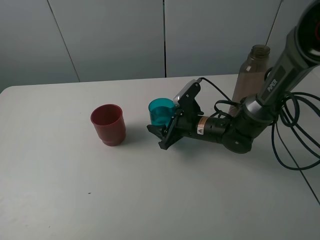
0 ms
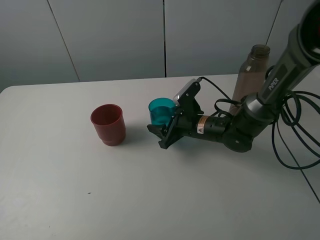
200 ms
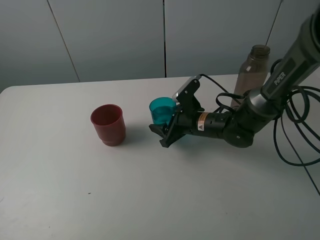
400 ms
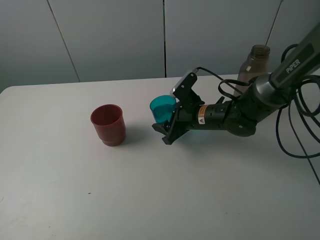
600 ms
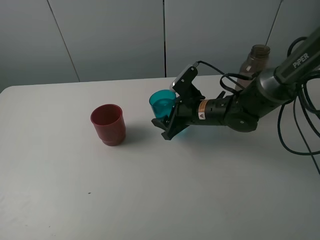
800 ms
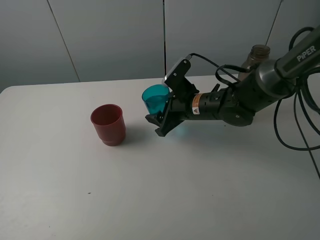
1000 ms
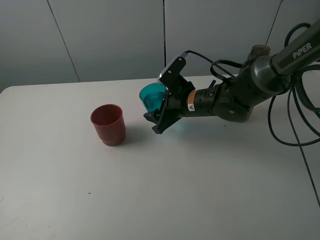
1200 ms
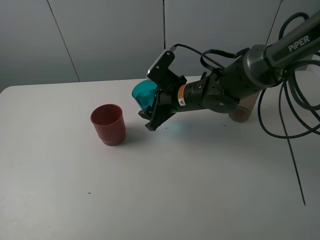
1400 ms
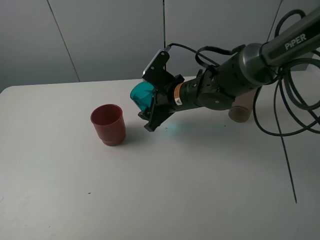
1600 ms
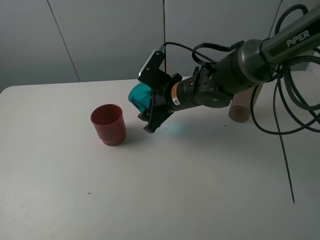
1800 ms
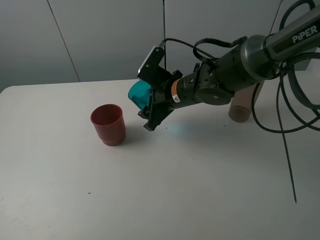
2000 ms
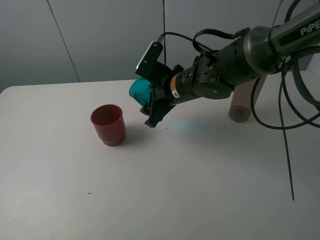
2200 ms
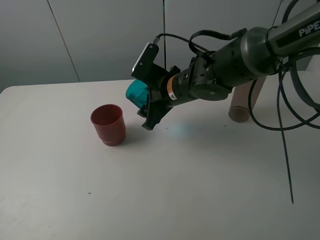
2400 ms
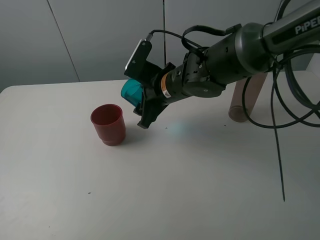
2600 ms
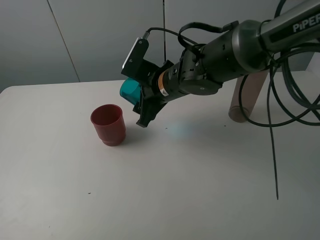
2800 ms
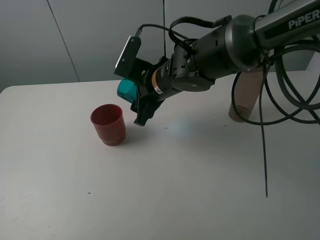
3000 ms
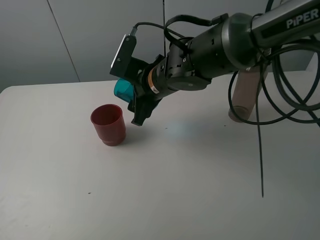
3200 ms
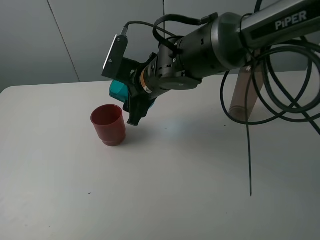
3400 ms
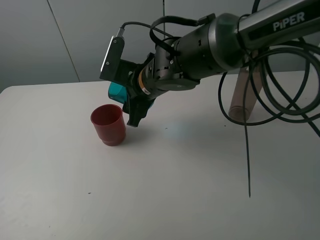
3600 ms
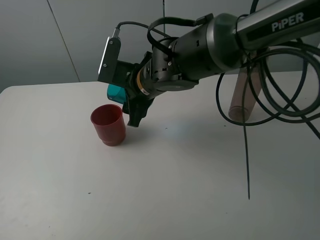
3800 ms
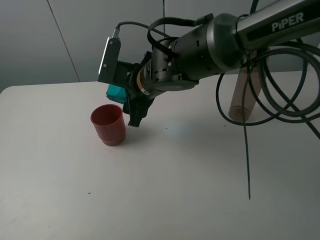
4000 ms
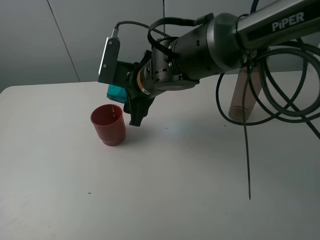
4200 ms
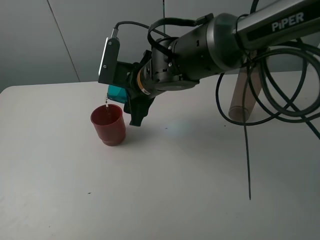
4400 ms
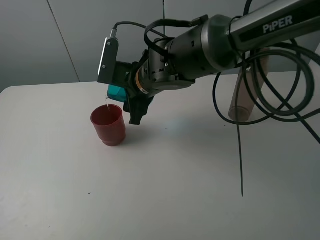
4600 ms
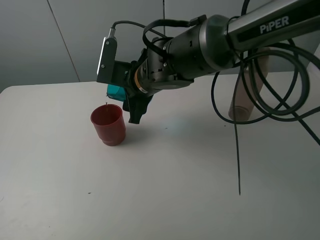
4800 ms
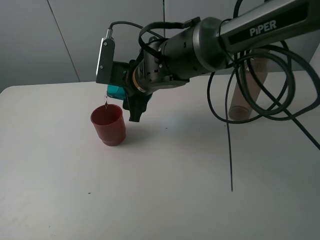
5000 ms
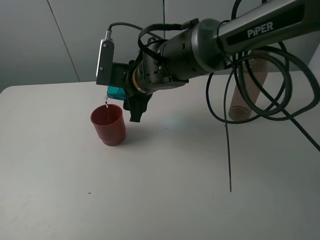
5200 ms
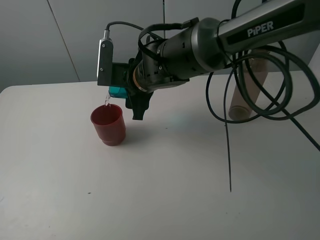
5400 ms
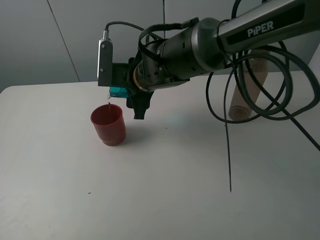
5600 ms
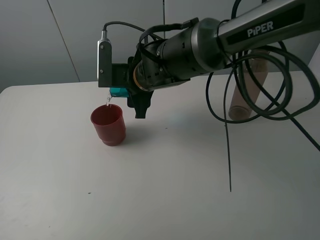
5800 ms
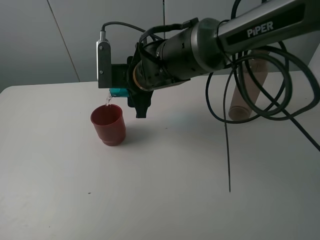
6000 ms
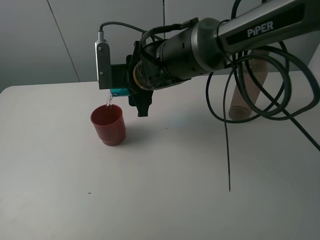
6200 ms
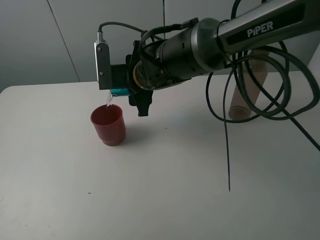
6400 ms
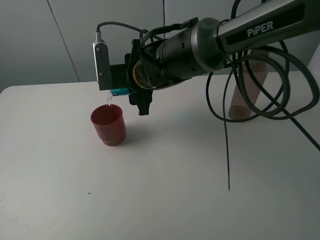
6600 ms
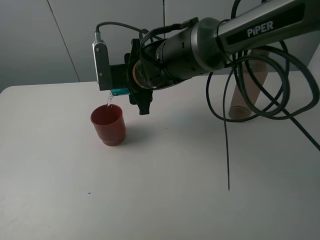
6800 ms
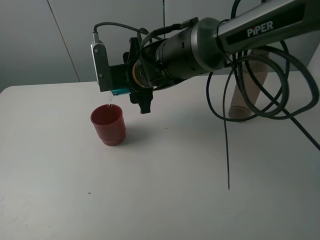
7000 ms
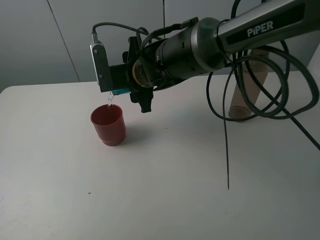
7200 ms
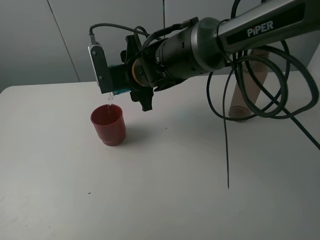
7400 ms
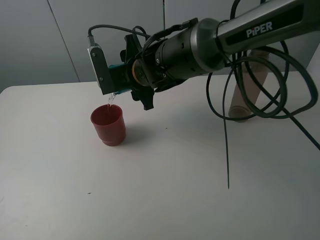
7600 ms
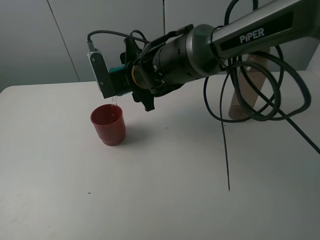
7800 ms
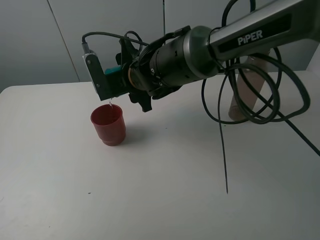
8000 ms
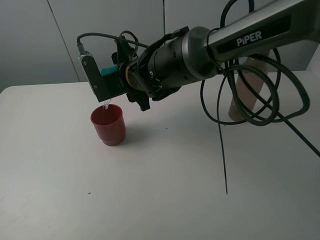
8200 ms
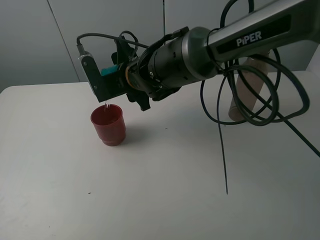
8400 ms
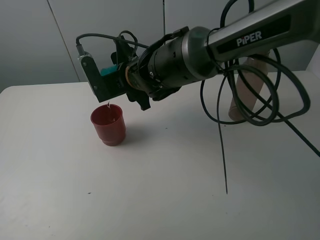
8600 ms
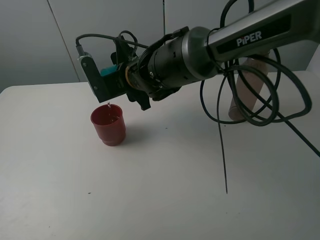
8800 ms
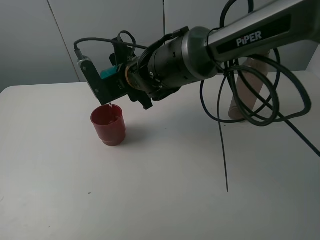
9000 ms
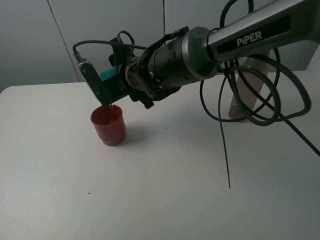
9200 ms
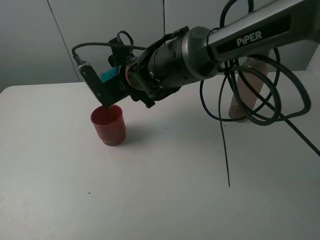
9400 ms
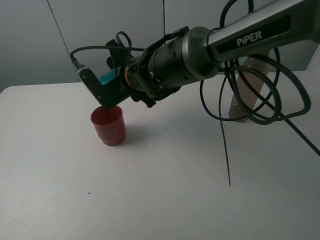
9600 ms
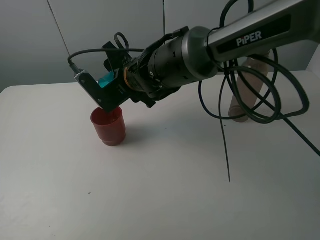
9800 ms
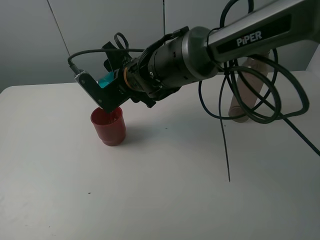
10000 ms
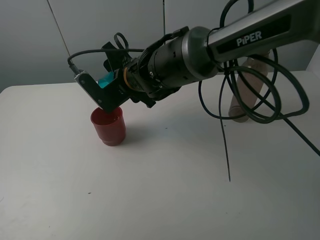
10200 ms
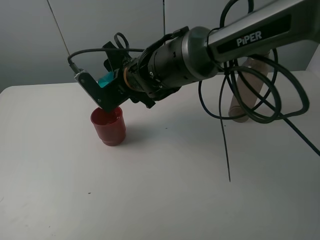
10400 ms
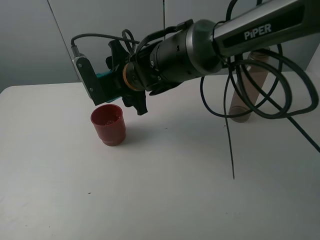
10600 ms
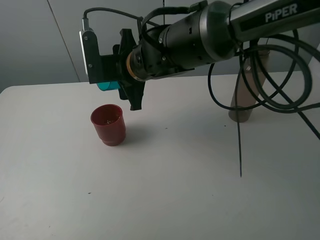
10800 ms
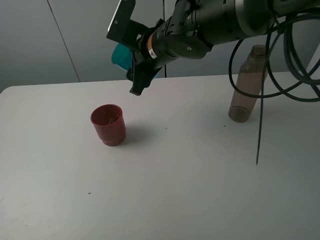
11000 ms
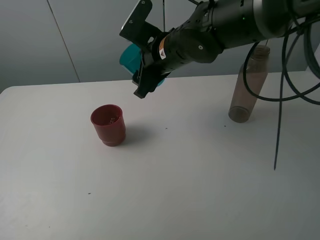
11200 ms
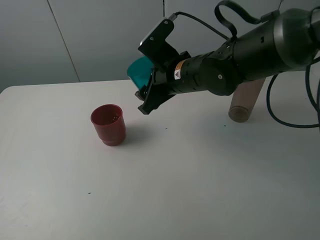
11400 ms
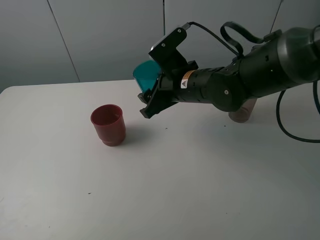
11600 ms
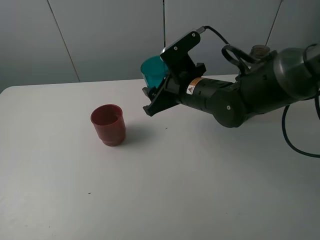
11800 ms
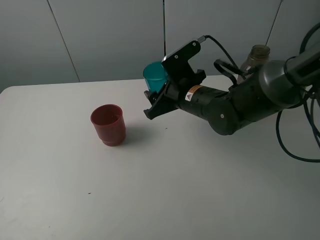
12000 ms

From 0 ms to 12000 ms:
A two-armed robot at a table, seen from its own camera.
Task of the whole recording: pick up the bottle and pour water into the cup, then pick up the cup containing water and pour it into another cup.
Step, from 0 ms to 10400 ms: Pour water from blue cup to red cup with the right gripper.
From 0 ms to 1600 ms: The right gripper is displaced upward by roughly 10 cm.
From 1600 ms to 3000 ms: The right gripper ends up some 5 cm from where it was.
From 3000 ms to 4400 ms: The grippers make only small movements.
From 4400 ms to 6000 ms: The grippers stay close to where they were, moving slightly.
From 6000 ms to 7600 ms: The grippers stay close to where they were, moving slightly.
From 7600 ms to 9000 ms: The grippers stay close to where they were, moving slightly.
From 9000 ms to 10400 ms: The grippers stay close to where they were, moving slightly.
From 10400 ms to 12000 ms: The right gripper shifts some 10 cm to the right.

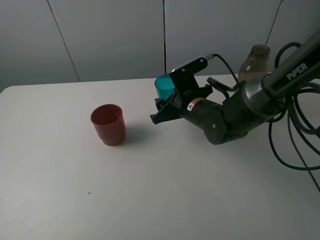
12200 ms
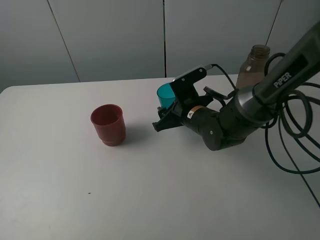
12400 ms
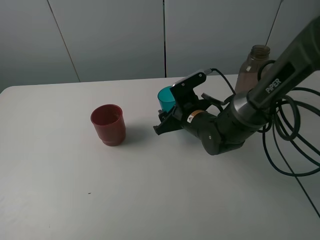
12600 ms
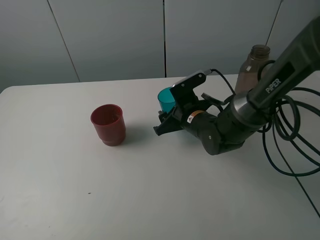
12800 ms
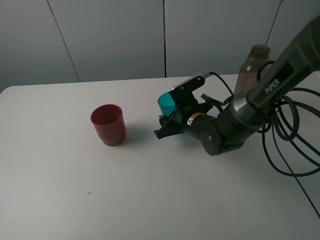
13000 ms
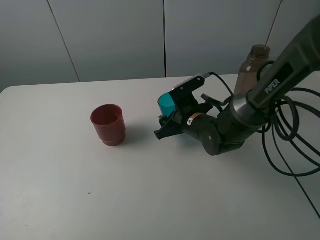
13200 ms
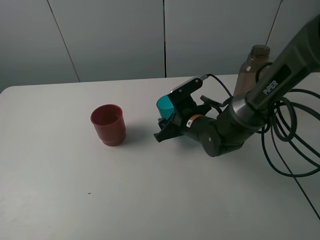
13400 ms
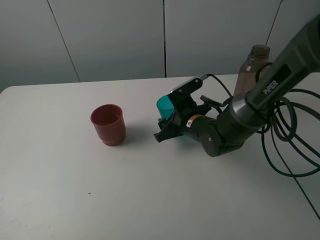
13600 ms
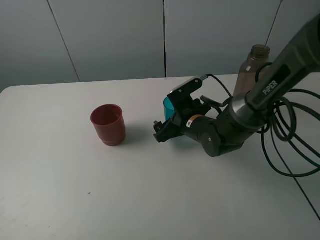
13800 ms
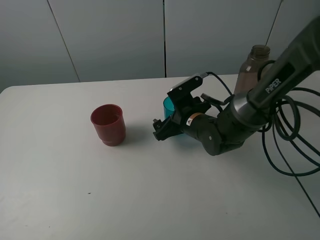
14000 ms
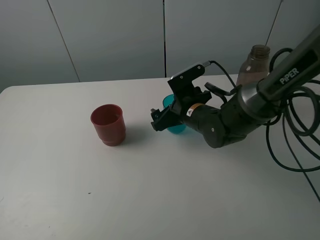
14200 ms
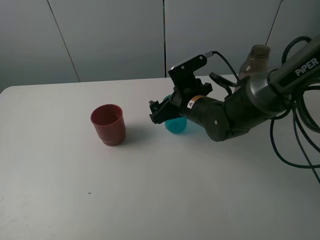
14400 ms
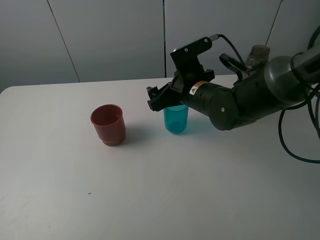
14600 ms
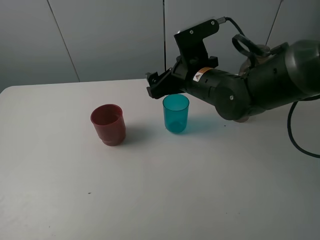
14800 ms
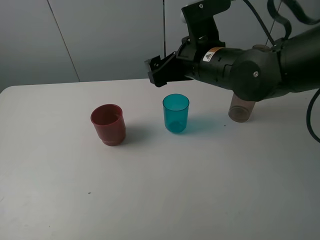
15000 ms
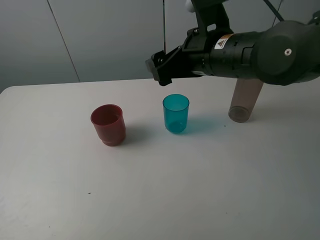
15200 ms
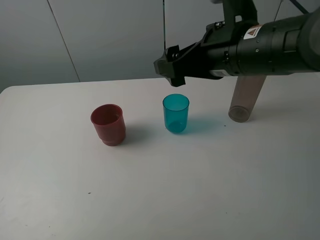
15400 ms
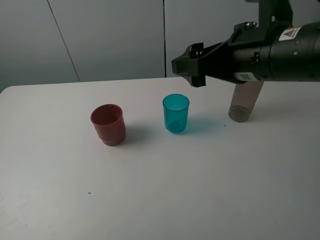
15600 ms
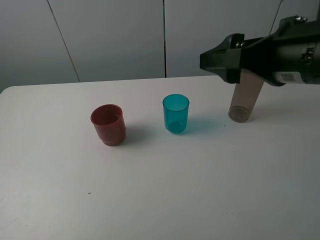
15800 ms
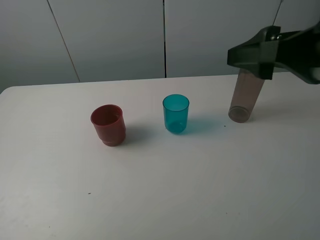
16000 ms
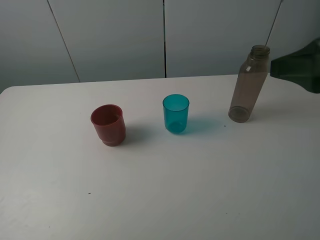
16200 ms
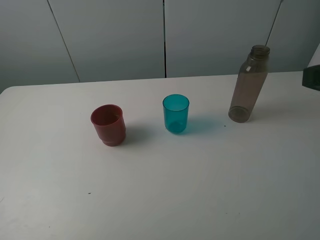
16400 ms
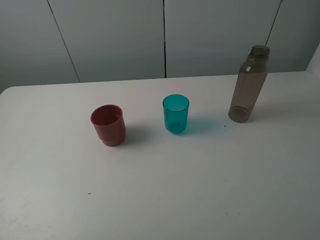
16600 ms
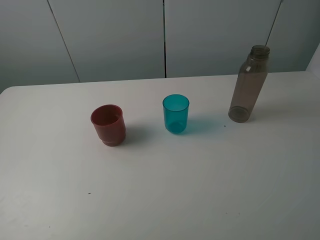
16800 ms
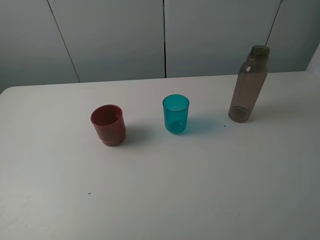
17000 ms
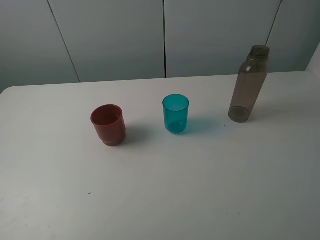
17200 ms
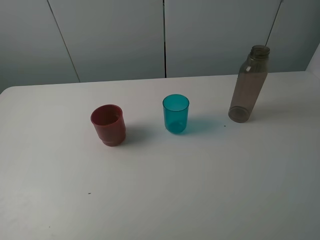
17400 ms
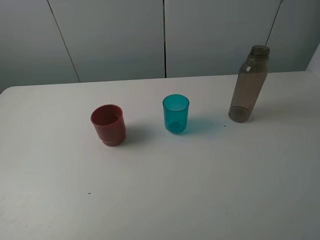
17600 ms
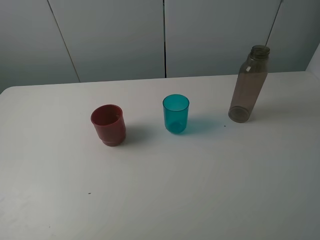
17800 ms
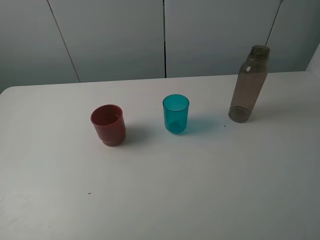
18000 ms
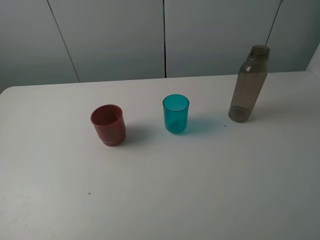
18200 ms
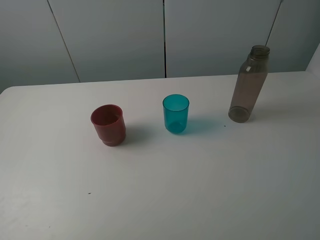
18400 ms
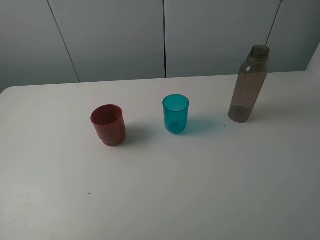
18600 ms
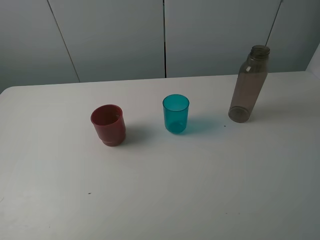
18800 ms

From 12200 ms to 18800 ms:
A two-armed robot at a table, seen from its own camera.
Task of the whole recording: pick up the bottle and pour water into the cup, then pick up the cup containing water and pour it into another cup.
From 12200 ms to 13800 ms: The right gripper opens its fingers.
From 13800 ms to 15400 ms: The right gripper goes some 20 cm upward.
From 15400 ms to 17200 ms: The right gripper moves backward and to the right, some 30 cm.

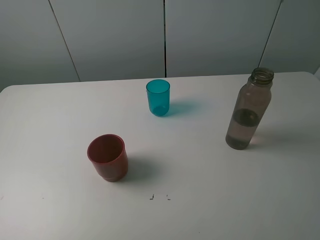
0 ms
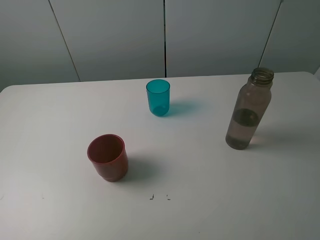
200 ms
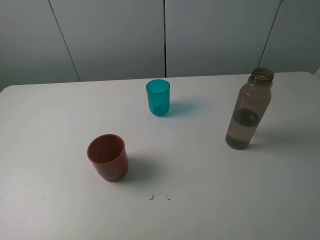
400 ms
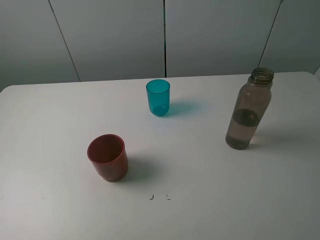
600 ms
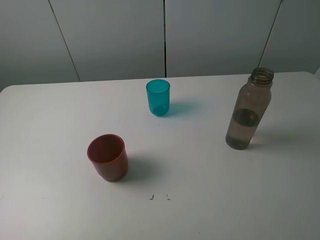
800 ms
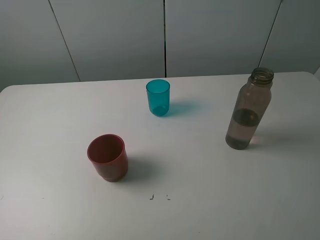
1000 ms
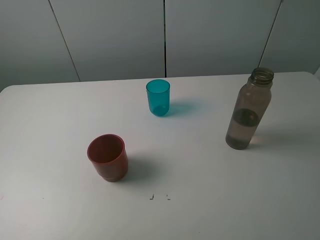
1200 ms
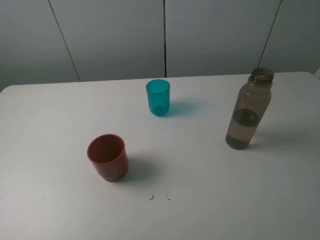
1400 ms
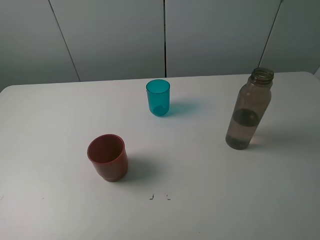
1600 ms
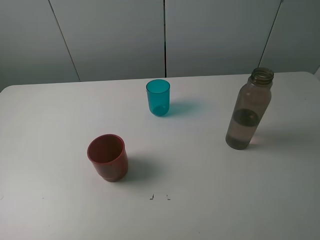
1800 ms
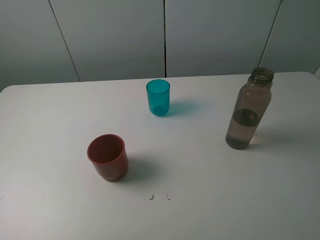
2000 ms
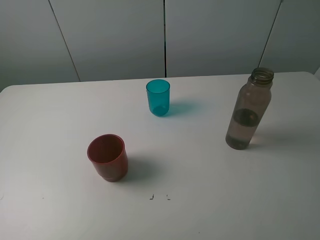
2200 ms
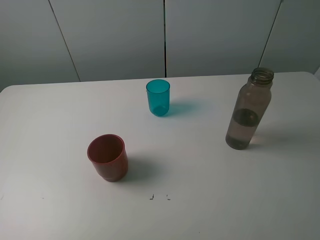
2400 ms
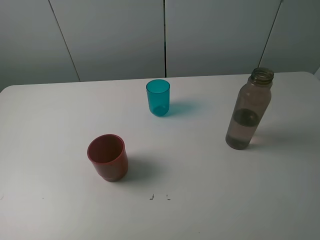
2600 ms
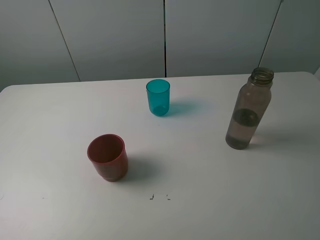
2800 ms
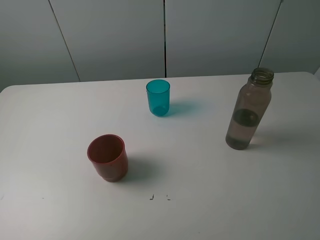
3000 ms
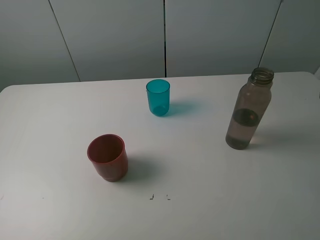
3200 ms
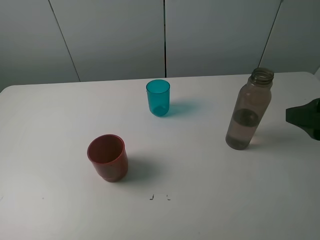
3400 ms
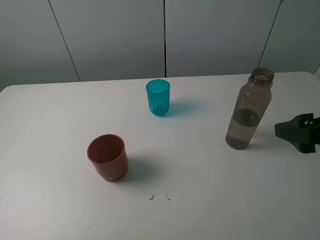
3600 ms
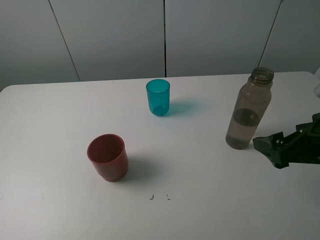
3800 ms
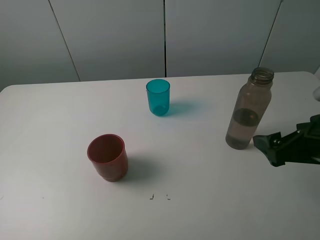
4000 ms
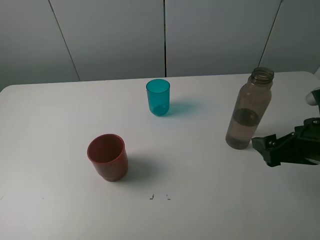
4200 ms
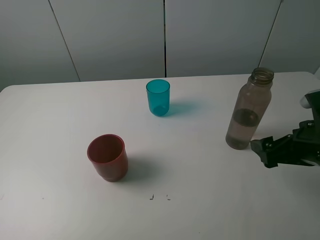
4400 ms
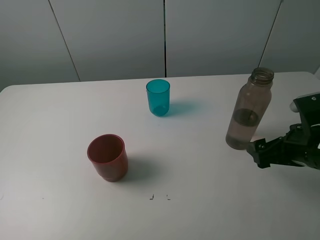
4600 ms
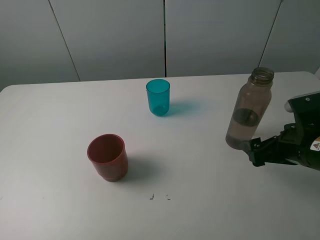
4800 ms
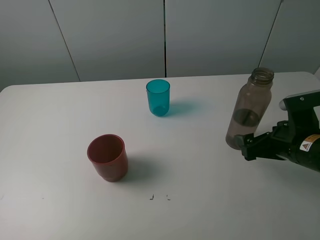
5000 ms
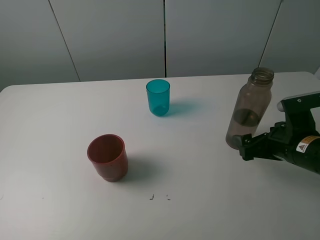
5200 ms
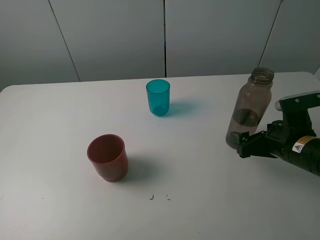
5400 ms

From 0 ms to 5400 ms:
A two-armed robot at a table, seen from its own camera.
Task of the whole recording: pick up the bottle and pour water into the cup, then pick up the cup containing water and pour it into another cup.
From 0 ms to 1400 ms: Both grippers stay put.
From 2800 ms to 4000 ms: The right gripper shifts some 20 cm downward and forward.
From 4000 ms to 5400 ms: The right gripper goes approximately 10 cm downward and forward.
